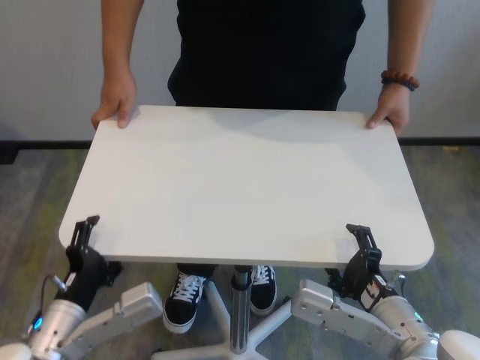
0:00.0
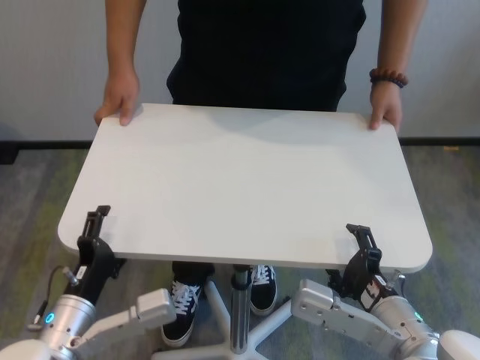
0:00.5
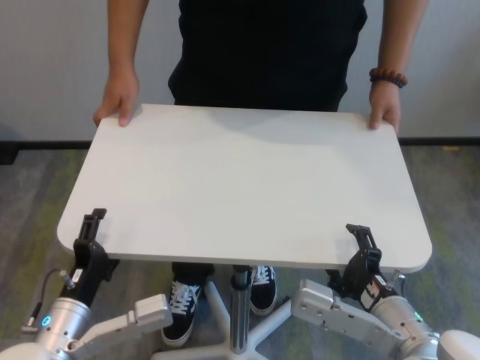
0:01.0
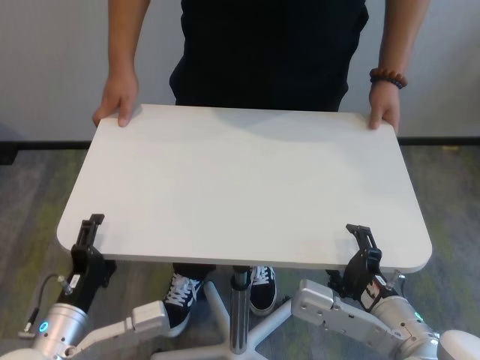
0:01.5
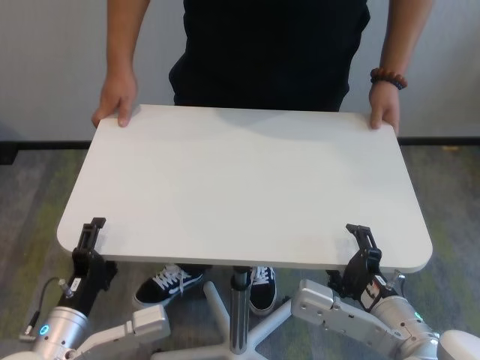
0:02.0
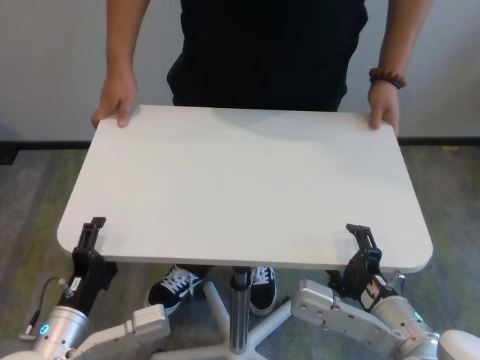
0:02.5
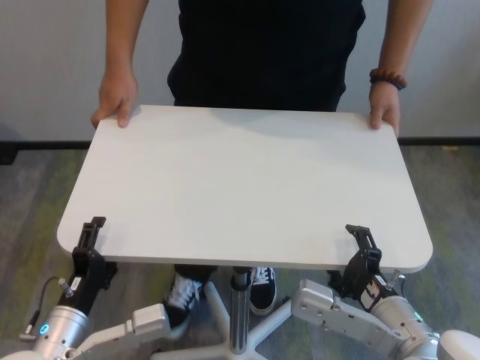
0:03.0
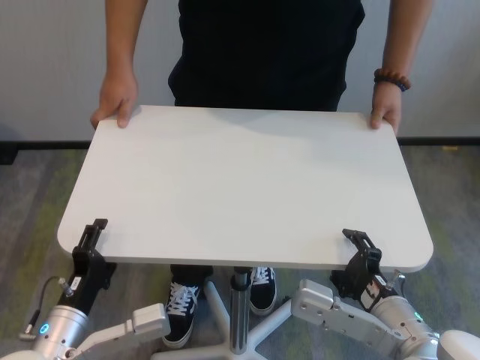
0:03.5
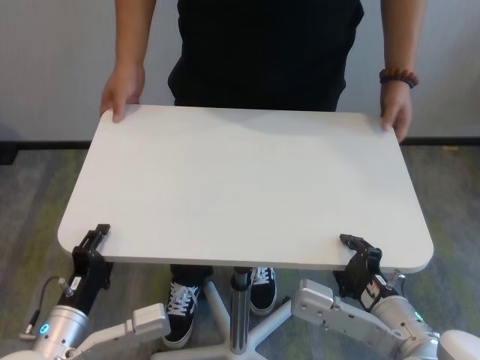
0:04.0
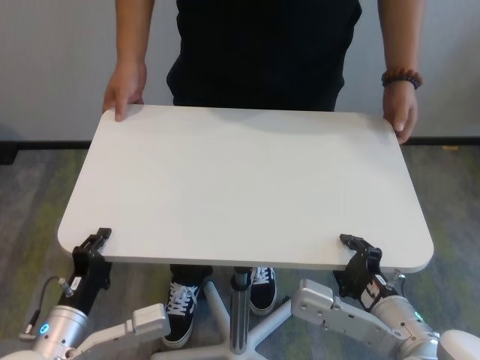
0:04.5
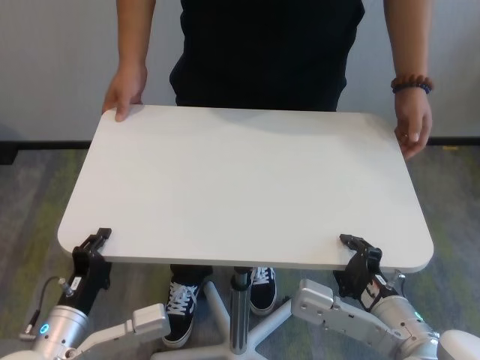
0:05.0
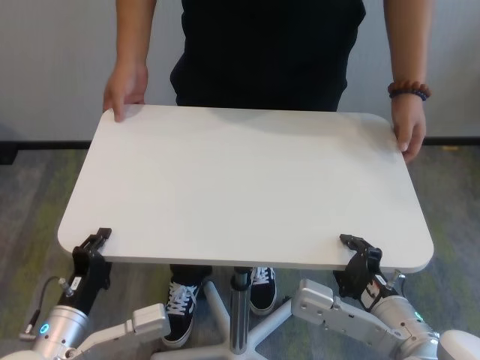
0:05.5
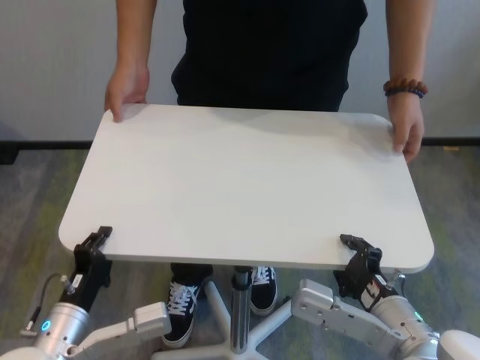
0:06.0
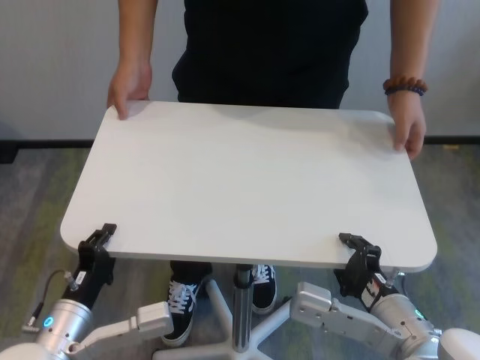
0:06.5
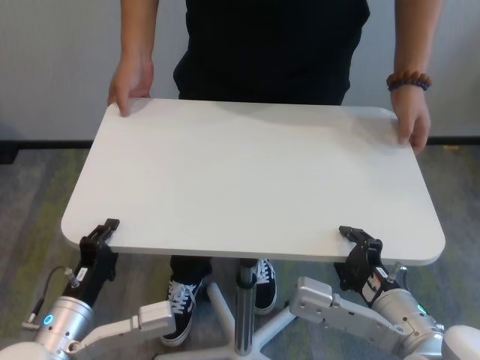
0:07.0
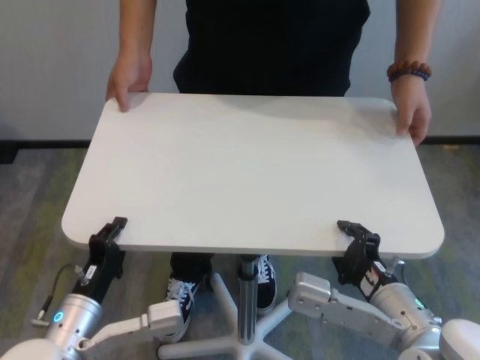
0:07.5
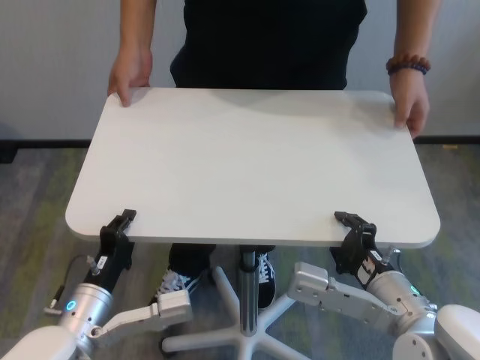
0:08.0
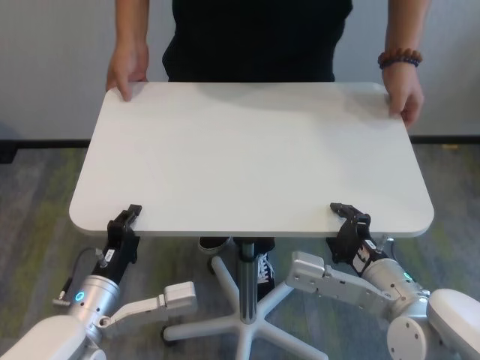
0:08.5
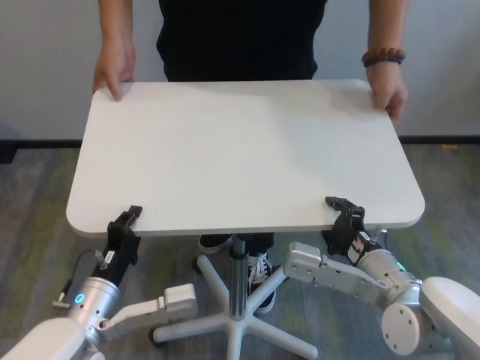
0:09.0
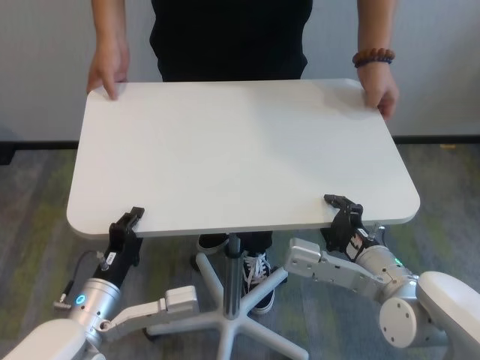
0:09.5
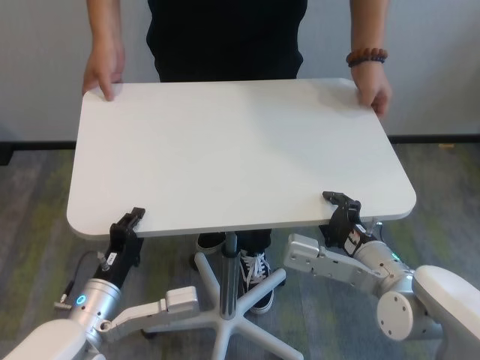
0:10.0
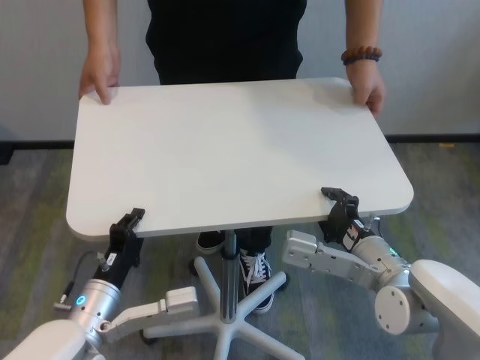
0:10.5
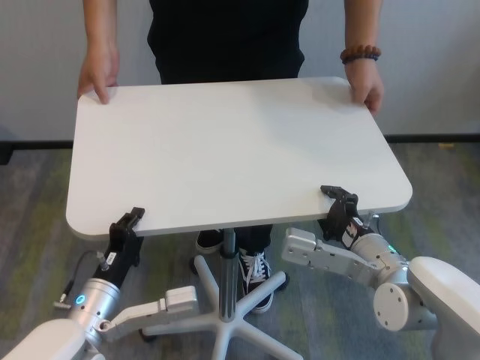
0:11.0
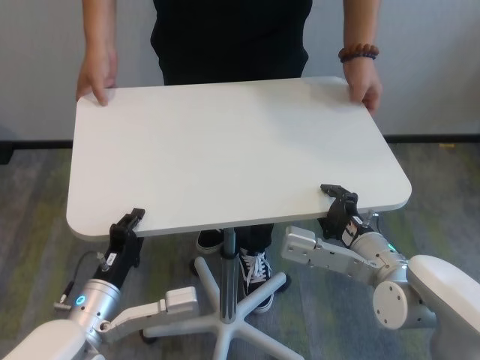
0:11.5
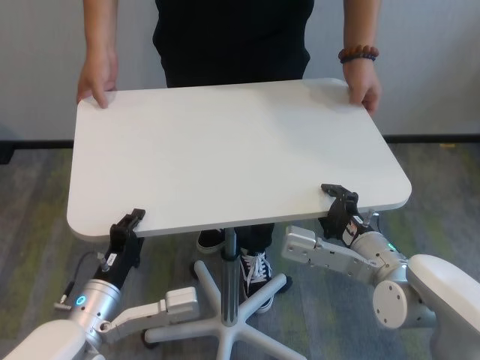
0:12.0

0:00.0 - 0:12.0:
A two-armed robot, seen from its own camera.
Task of the whole recording: human machine collaborative table moving.
Step, 0:00.0 - 0:05.5: Grasp the table with both grippers.

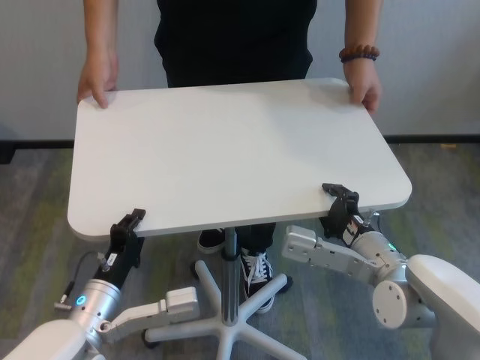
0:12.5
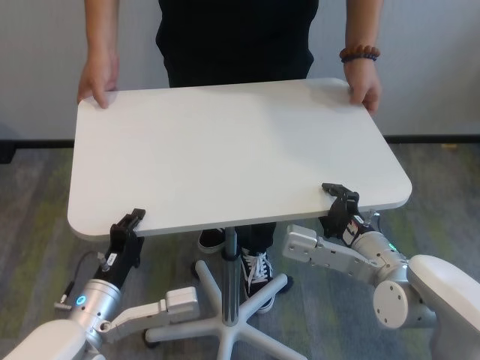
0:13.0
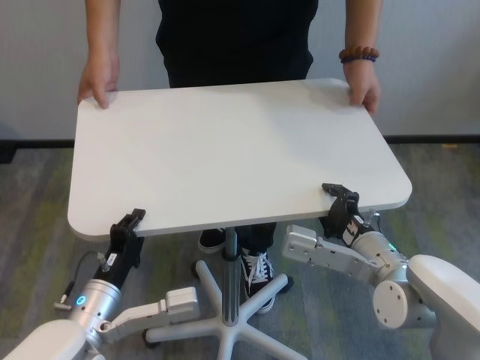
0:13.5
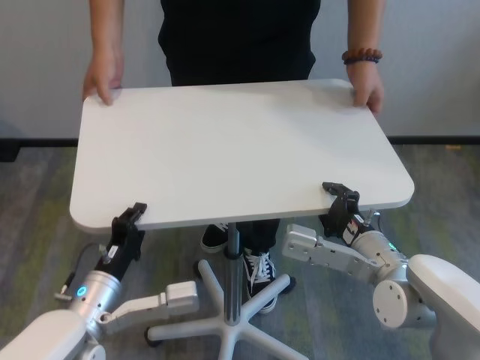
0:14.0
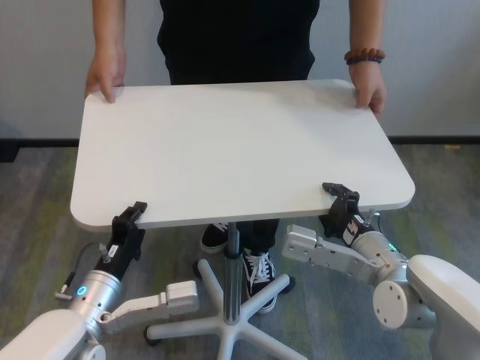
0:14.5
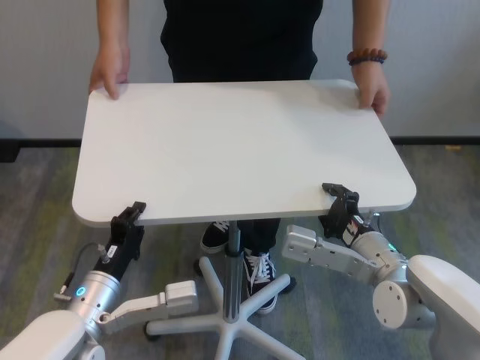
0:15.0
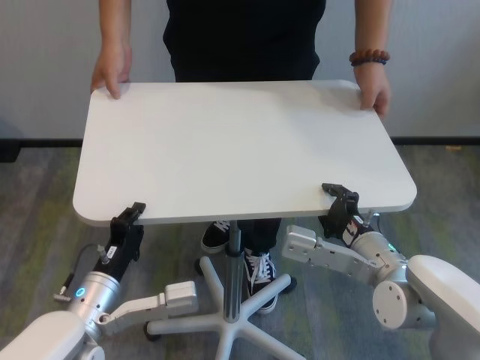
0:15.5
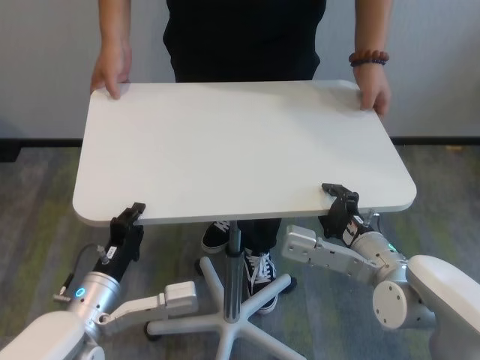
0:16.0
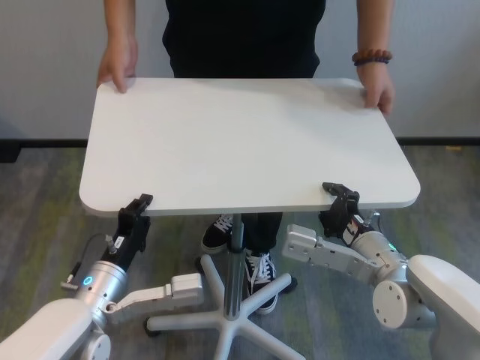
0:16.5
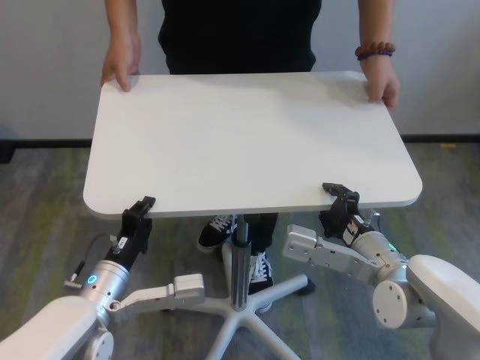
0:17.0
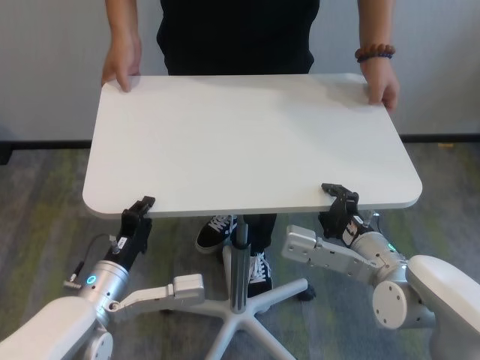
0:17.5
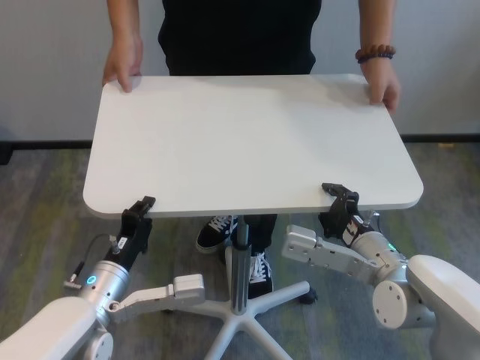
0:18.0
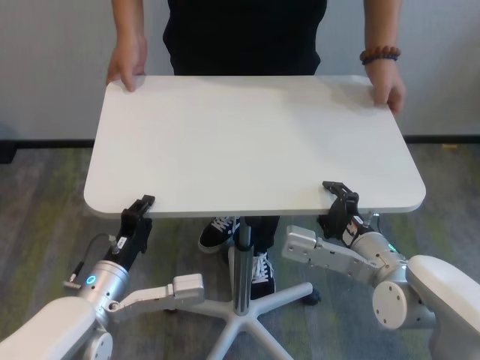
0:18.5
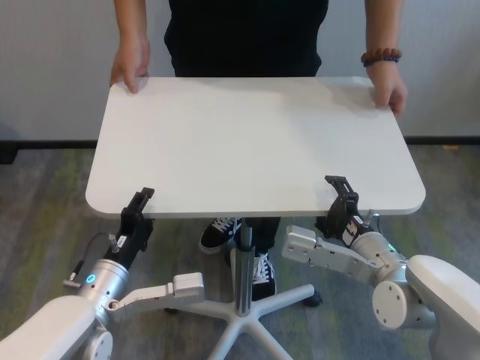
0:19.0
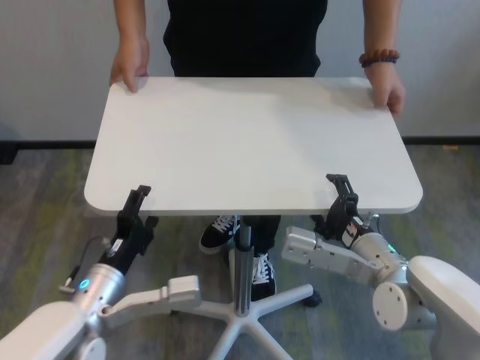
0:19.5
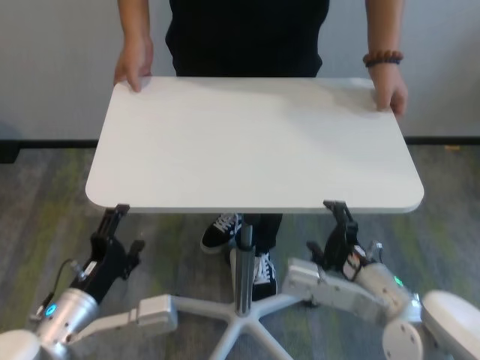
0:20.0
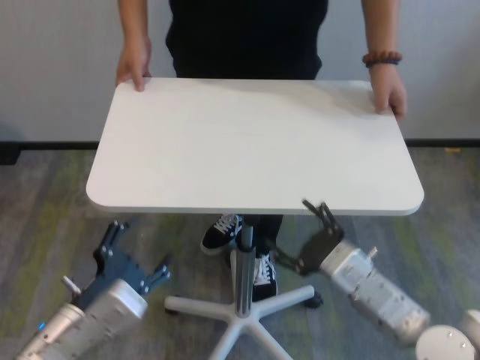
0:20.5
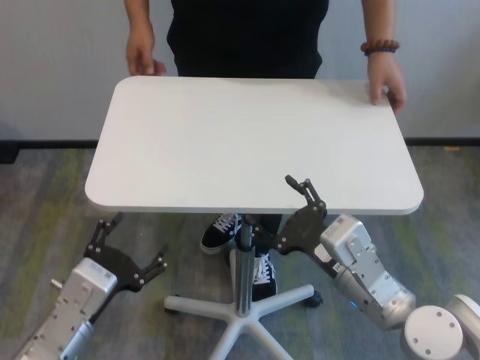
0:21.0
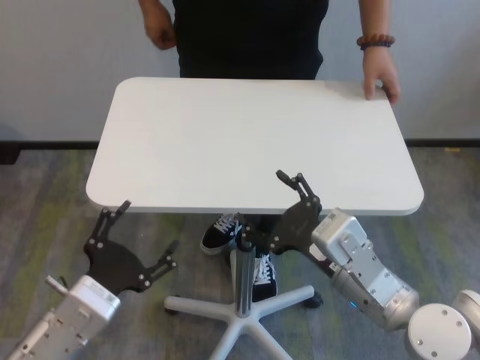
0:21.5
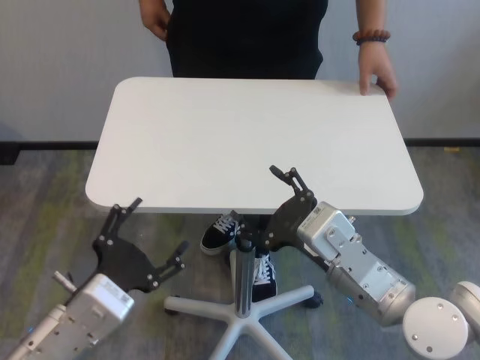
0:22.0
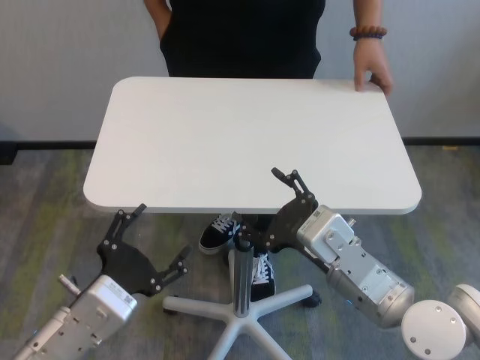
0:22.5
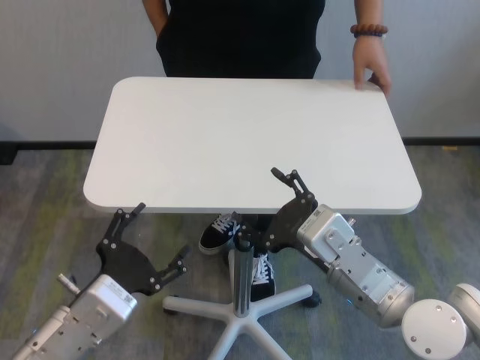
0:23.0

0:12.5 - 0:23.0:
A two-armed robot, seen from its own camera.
Task of the whole recording: human machine collaborative table moving.
Step, 0:12.5 - 0:19.0: Move the table forward with both grippers.

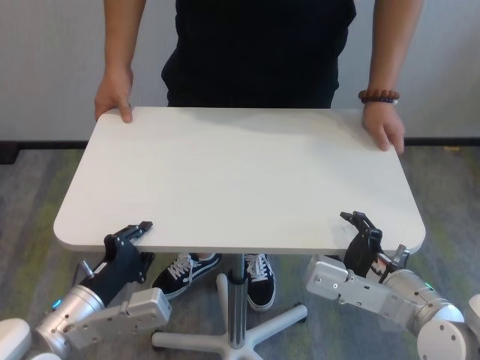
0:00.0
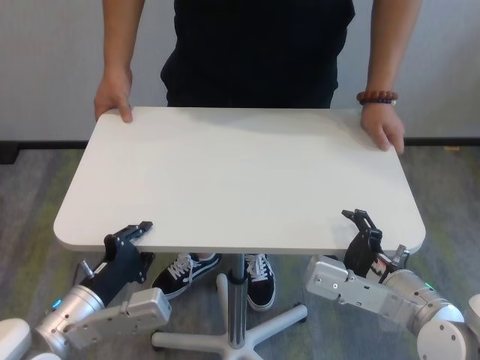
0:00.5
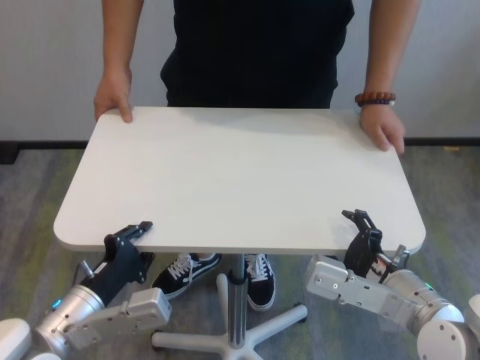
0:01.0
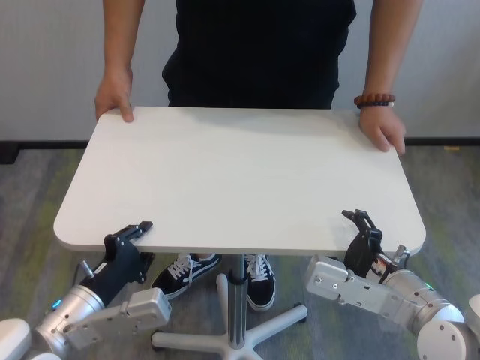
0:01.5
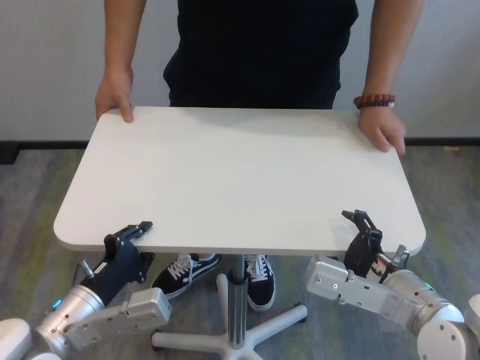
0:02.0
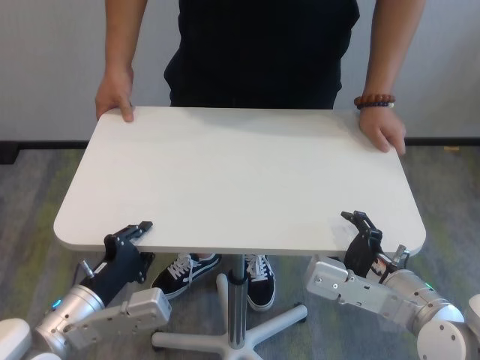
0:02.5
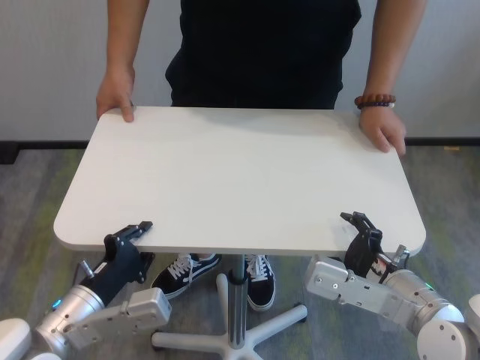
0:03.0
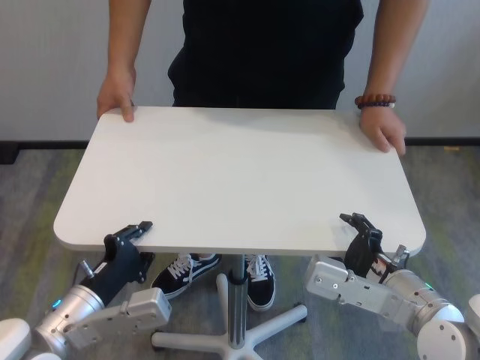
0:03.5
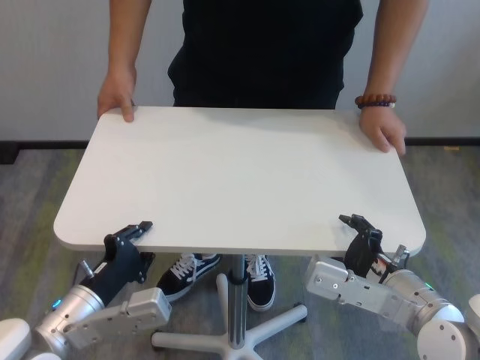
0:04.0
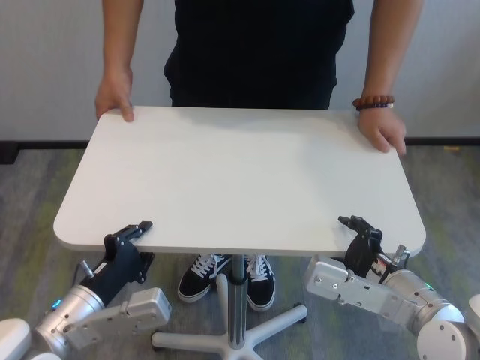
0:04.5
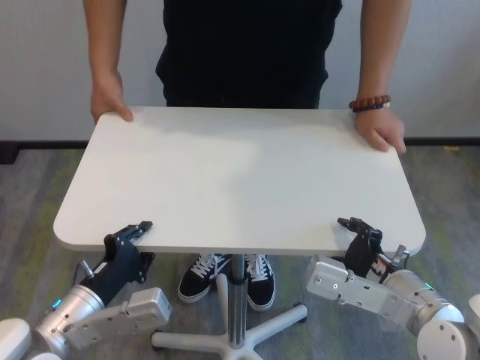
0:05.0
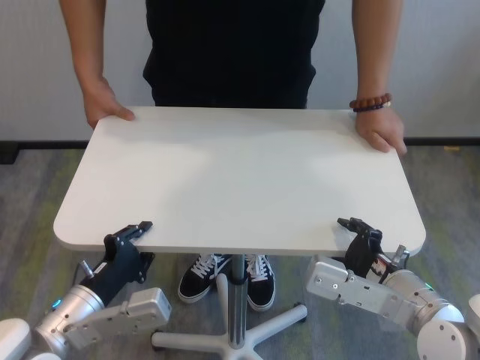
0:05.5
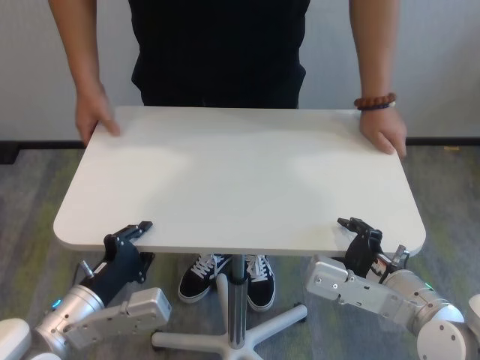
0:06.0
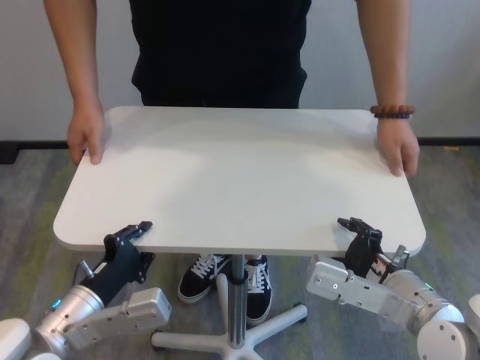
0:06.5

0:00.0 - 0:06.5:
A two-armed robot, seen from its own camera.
Task of the whole recording: human machine collaborative table moving.
Step, 0:00.0 - 0:04.5: Grasp the table with both grippers.
